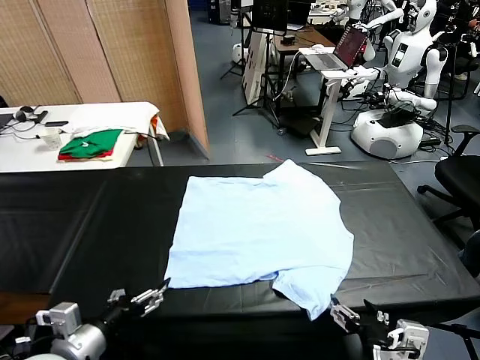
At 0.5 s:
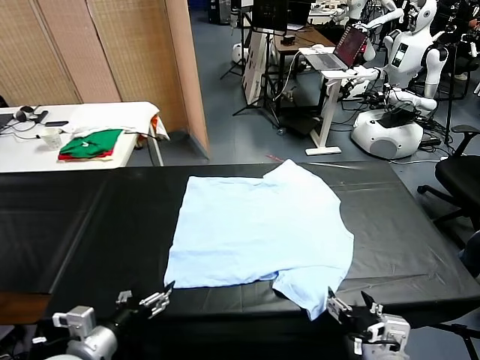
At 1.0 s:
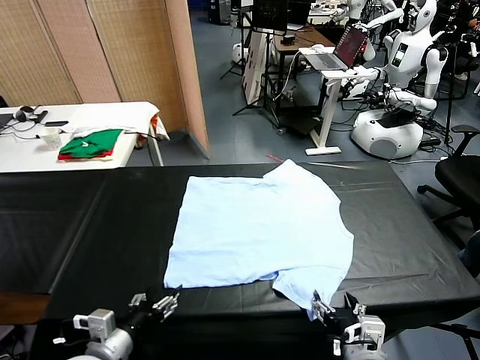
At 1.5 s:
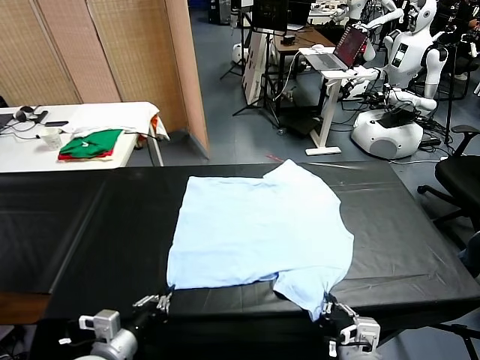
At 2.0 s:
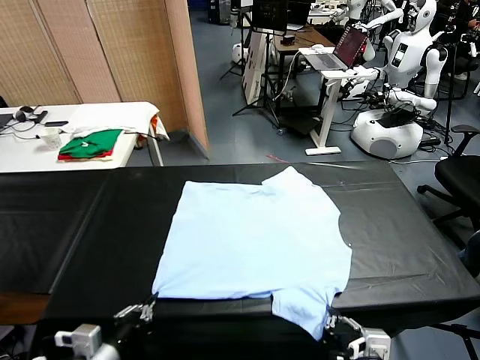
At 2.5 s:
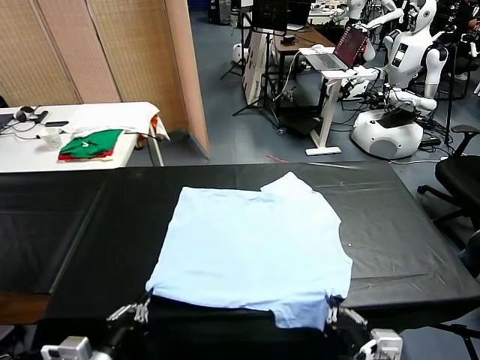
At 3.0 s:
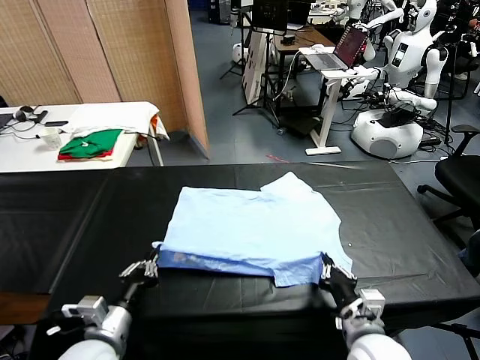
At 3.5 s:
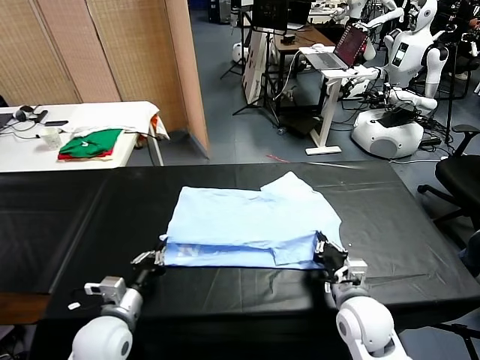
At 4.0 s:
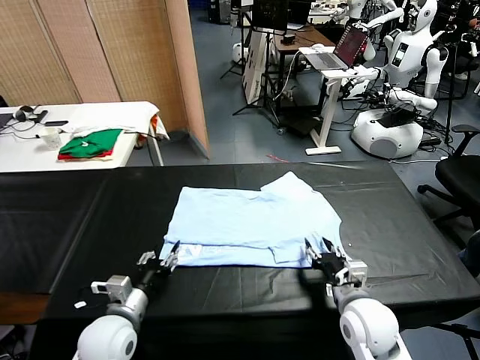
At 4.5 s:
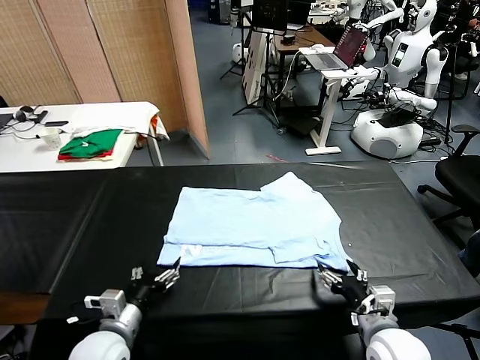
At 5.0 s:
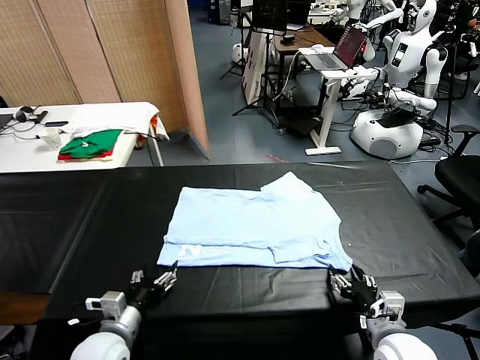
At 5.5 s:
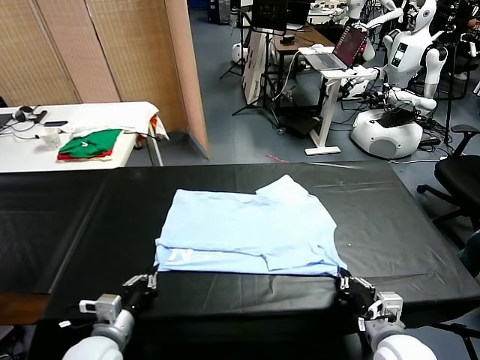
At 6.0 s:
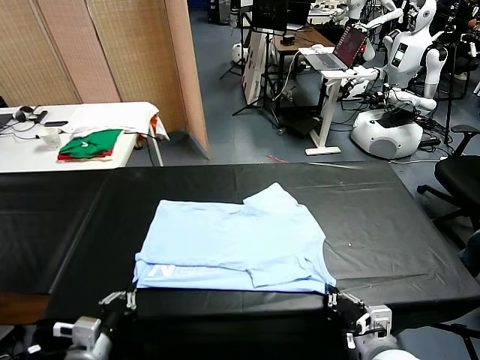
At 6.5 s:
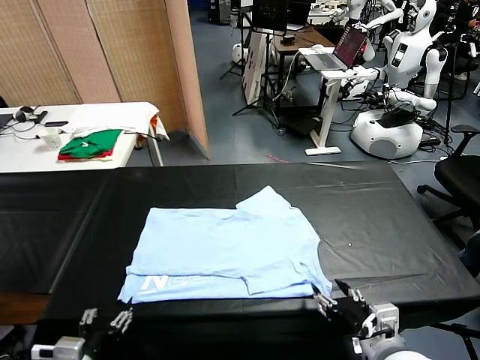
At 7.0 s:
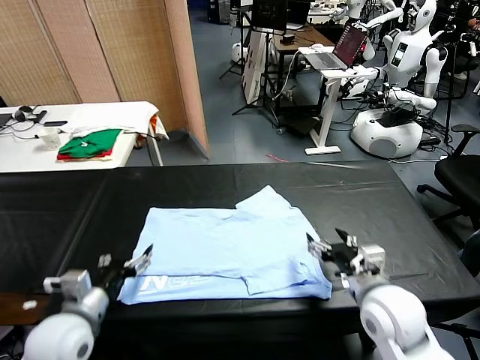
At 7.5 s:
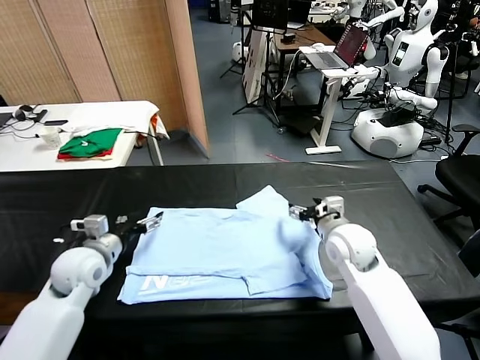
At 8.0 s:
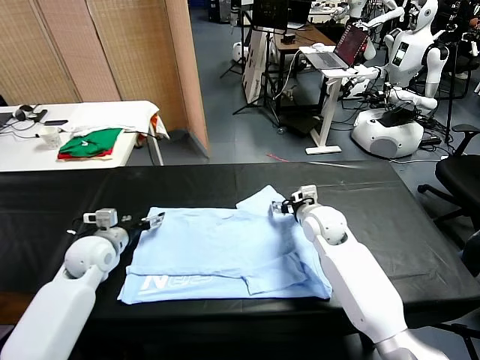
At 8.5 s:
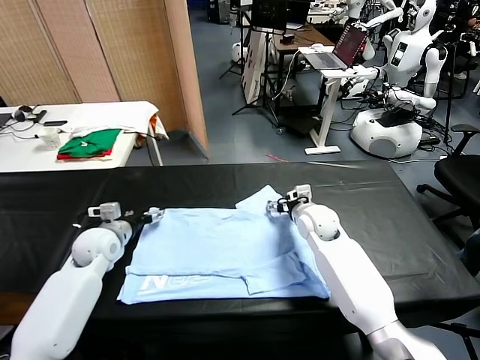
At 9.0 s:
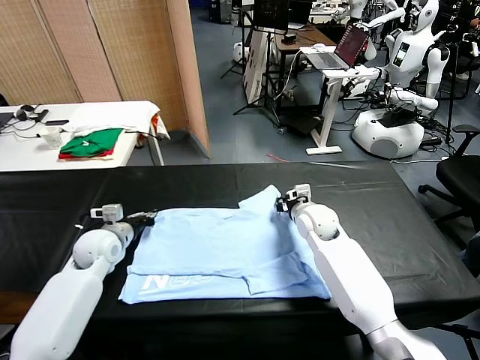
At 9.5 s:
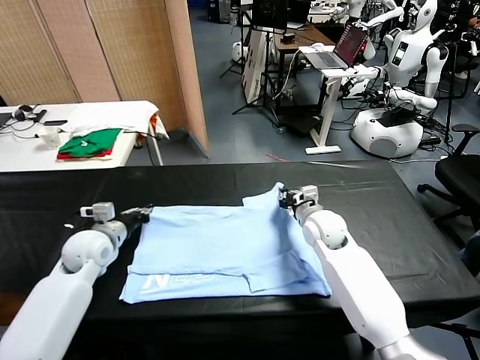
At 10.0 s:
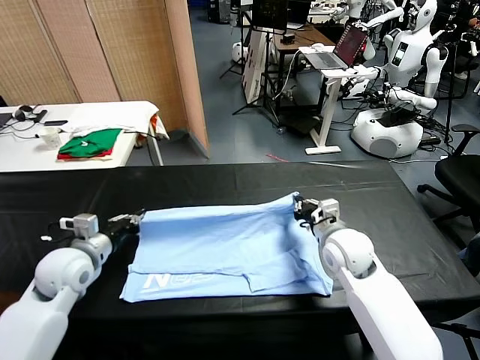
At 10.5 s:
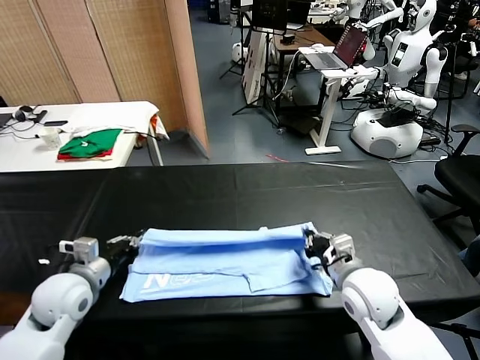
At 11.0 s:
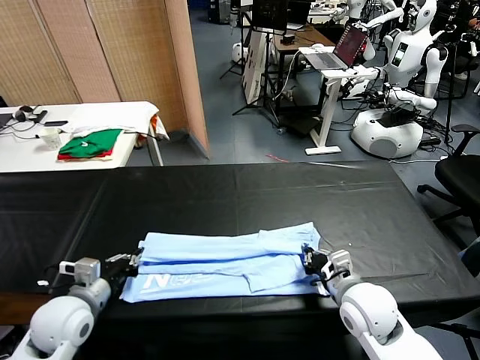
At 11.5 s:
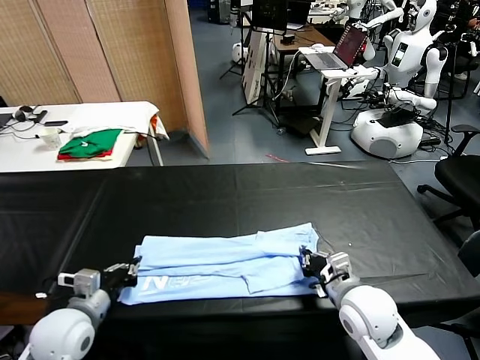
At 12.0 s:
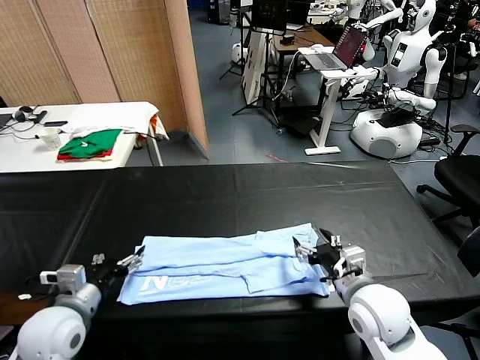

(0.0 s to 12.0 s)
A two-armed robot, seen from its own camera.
Task of the whole recording: fold and organize the clothes.
Step, 0.0 s - 1.0 s: use both grippers simultaneously to clamp the lower edge of the clothing fabric.
Step, 1.5 s - 3.5 s: use both grippers to drag the lower edge of the fabric forward and fold it over the upper edge.
Step, 4.0 s - 6.0 s: Drag the clothes downward with both gripper.
Step, 6.5 s - 9.0 s: use both grippers simultaneously to clamp the upper edge of the clothing fabric.
Step, 9.5 s - 11.5 s: use both grippers to drag the upper edge of the fabric backward and fold it over the lower edge.
2.0 s - 4.0 s: The left gripper moves forward, about 10 cm, and opens its fingers. The right gripper moves forward and downward, roughly 10 cm, and opens up.
4.0 s - 6.0 s: The left gripper travels backward by roughly 10 cm, and closes up. The right gripper heads backward, covering roughly 5 cm, and closes.
6.0 s - 8.0 s: Both grippers move forward, about 30 cm. The right gripper opens. The left gripper opens.
8.0 s - 10.0 s: The left gripper goes about 5 cm backward, and closes. The right gripper travels backward by roughly 15 cm, and closes up.
10.0 s - 12.0 s: The right gripper moves backward, about 5 cm, and opens its fingers, while the left gripper goes about 10 cm backward, and opens.

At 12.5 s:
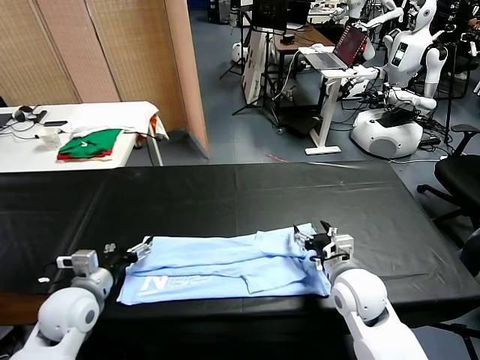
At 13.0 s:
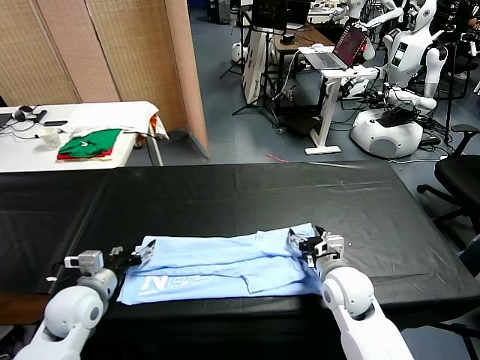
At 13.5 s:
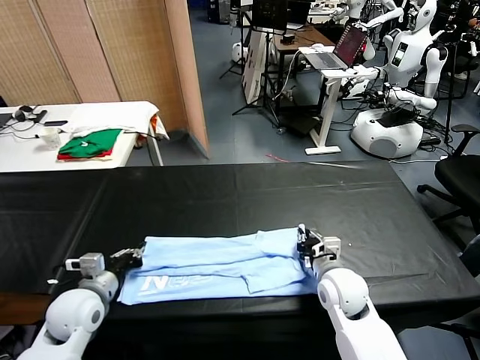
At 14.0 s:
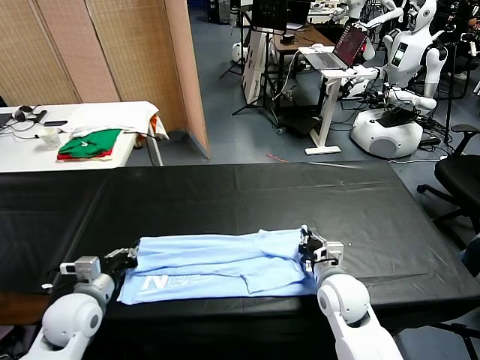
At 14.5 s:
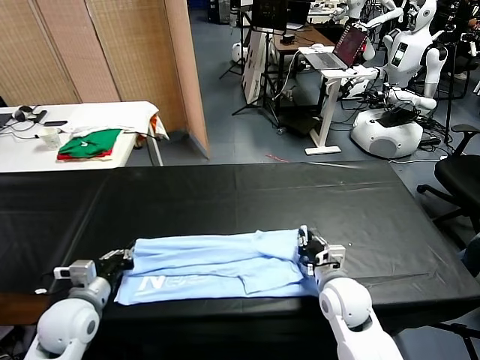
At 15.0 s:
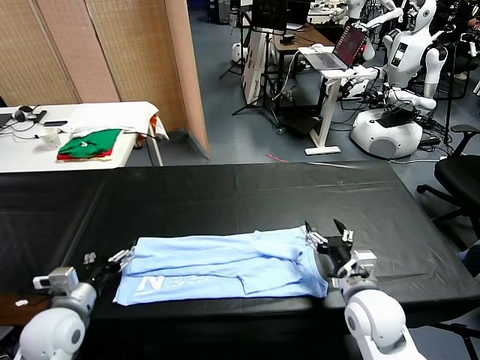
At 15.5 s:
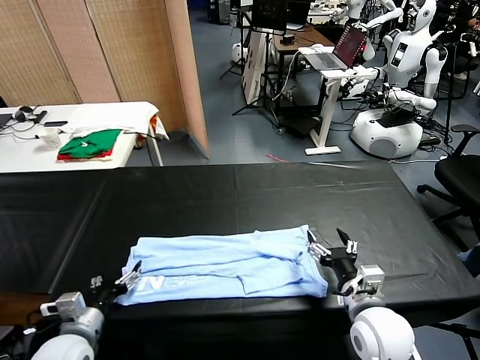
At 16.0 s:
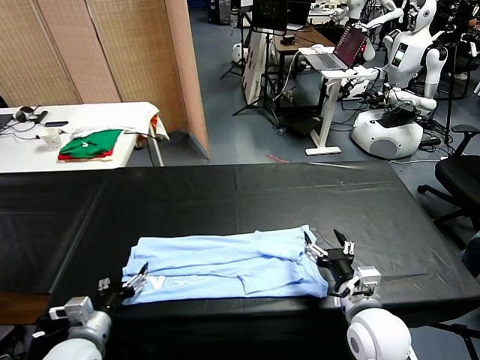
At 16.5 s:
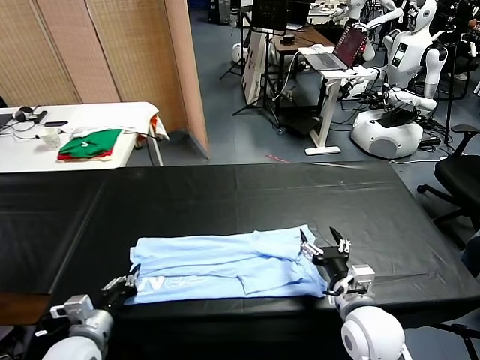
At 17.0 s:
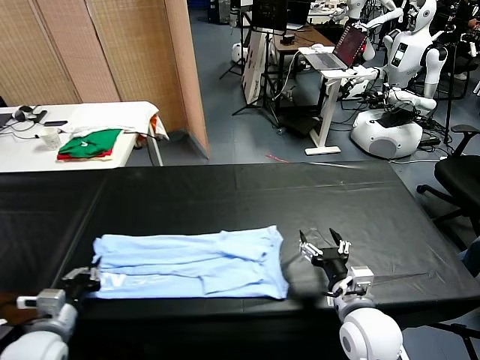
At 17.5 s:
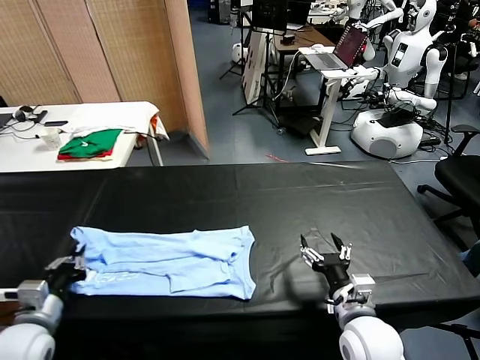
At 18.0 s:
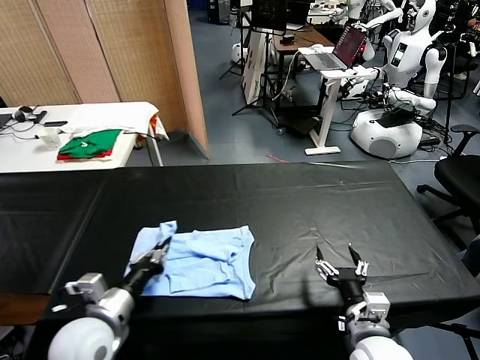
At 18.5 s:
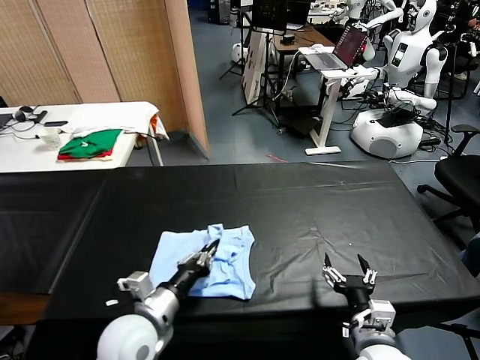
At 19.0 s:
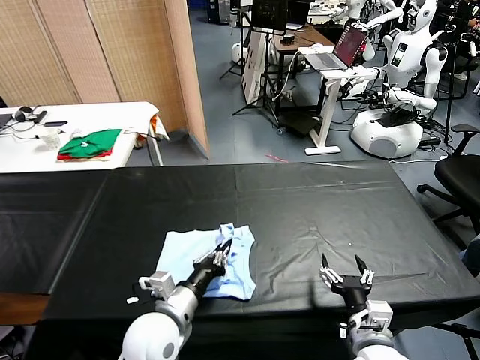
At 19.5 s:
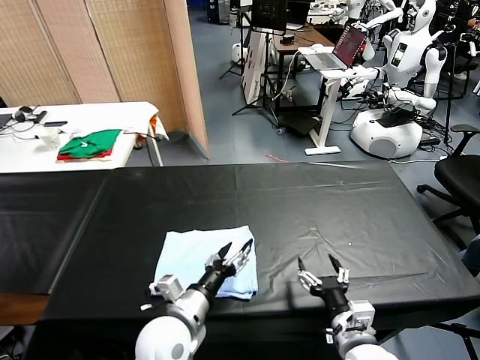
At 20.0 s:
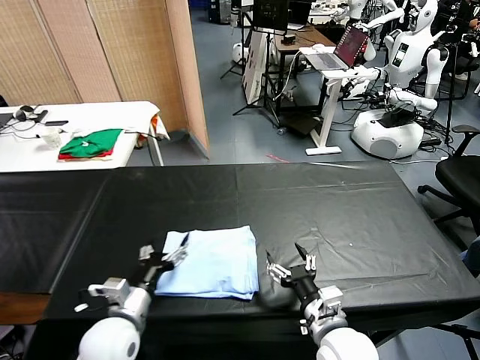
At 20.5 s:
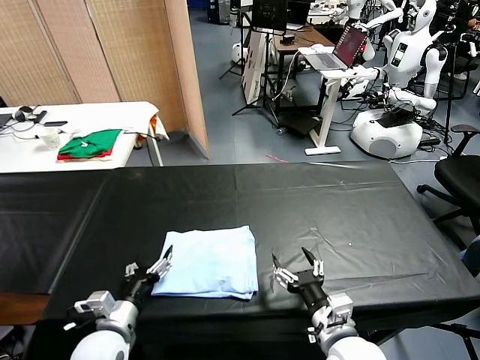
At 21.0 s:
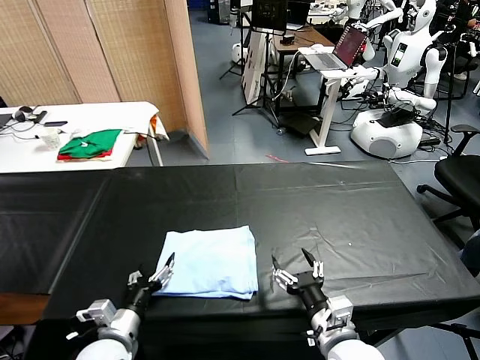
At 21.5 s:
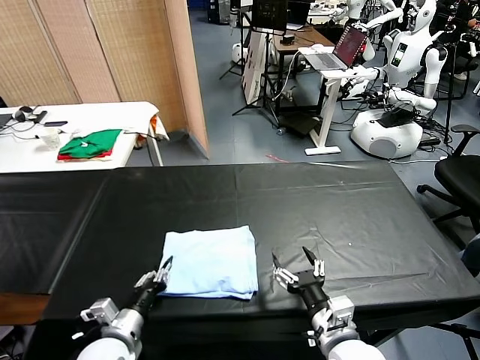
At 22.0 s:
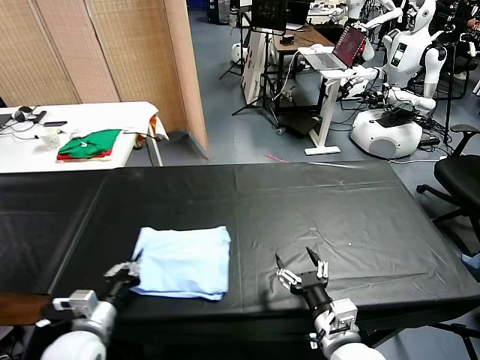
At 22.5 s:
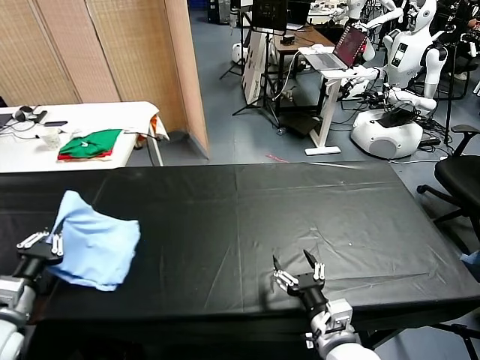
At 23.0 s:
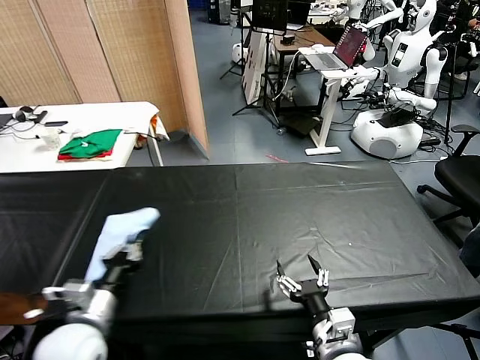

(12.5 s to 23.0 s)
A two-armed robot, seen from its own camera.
Task of the whole recording: fold and organize the clothes.
Step, 12.5 s - 16.0 s: use the left gripper to clamp the left edge of the fabric.
Step, 17.0 s - 19.0 s: use the left gripper to drag the left edge of the fabric to the left and folds it over the right edge.
12.5 s - 14.5 s: The left gripper closes, while the right gripper closes up.
14.5 s - 16.5 s: The grippers both shift backward by some 5 cm. The right gripper opens up; the left gripper opens, then closes again.
16.5 s - 19.0 s: The left gripper moves to the right, approximately 15 cm; the right gripper moves backward, roughly 5 cm.
19.0 s - 21.0 s: The left gripper is displaced to the left and downward by approximately 10 cm, and opens its fingers.
21.0 s - 23.0 s: The left gripper moves upward, about 10 cm, reaches approximately 15 cm to the left, then returns, and closes its fingers.

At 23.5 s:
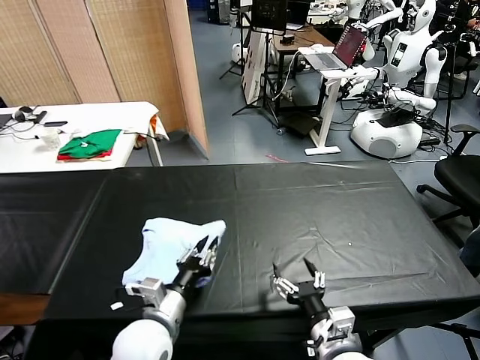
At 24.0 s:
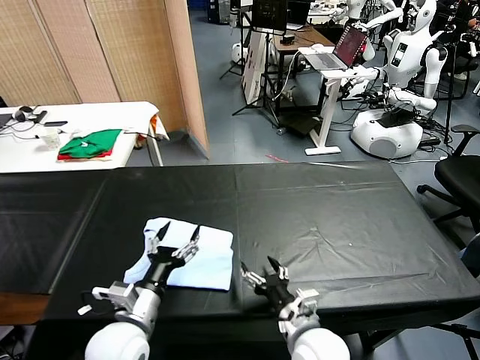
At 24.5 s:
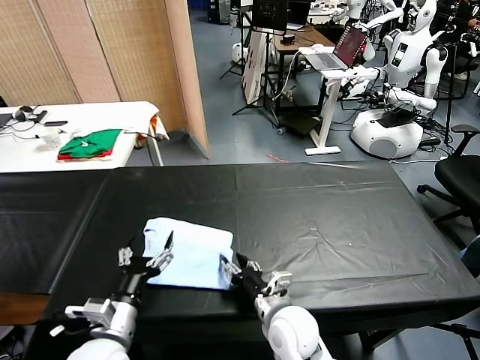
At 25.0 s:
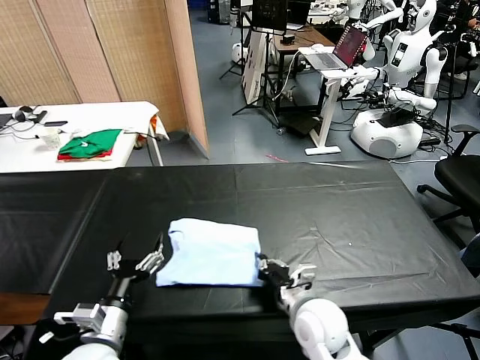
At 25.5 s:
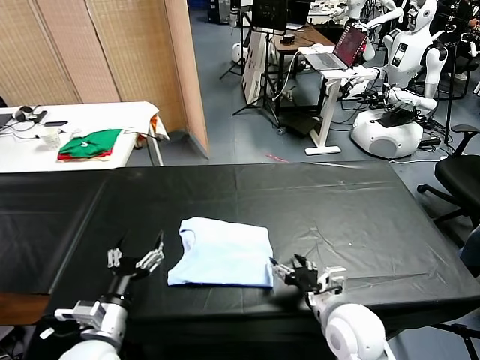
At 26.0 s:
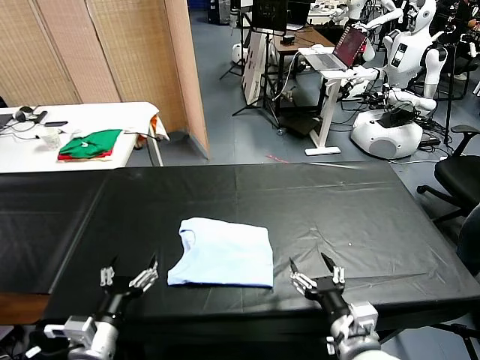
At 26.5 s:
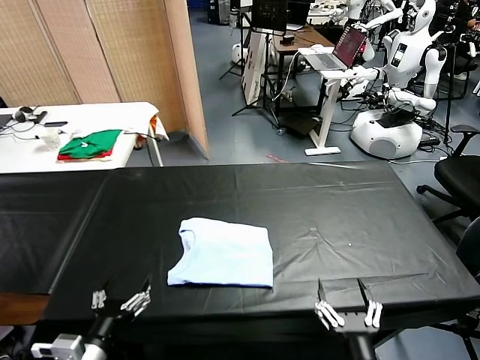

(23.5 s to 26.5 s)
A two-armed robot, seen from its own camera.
Task of the whole recording: fold and organize the clothes.
Step, 24.0 s - 25.0 s: Drag the clothes to the center of the table.
23.5 s - 25.0 s: The right gripper goes approximately 10 cm forward, and closes its fingers; the left gripper is displaced to the left by about 10 cm, and opens up.
25.0 s - 26.5 s: The right gripper travels backward by about 20 cm, and opens. Meanwhile the left gripper is displaced backward by roughly 5 cm.
